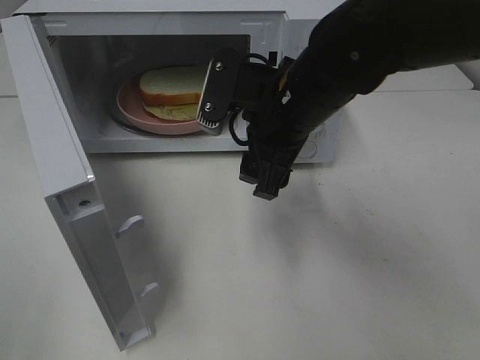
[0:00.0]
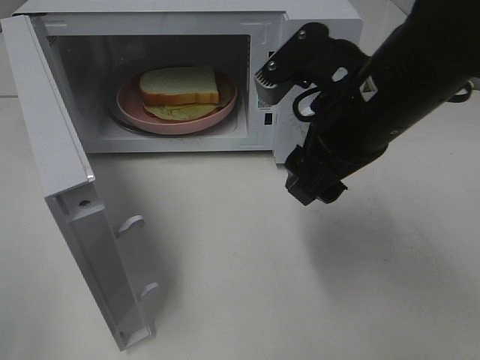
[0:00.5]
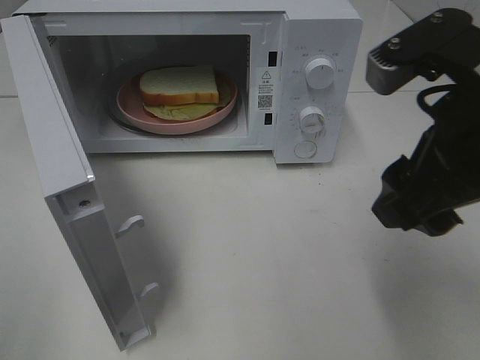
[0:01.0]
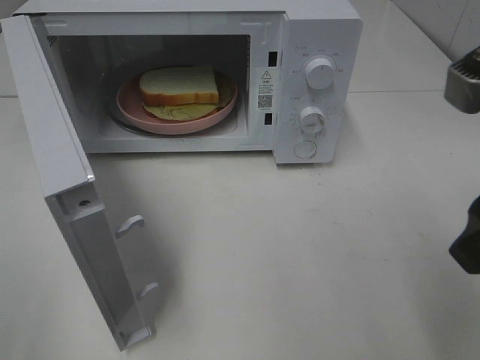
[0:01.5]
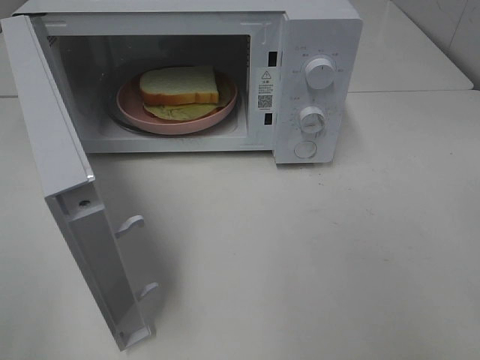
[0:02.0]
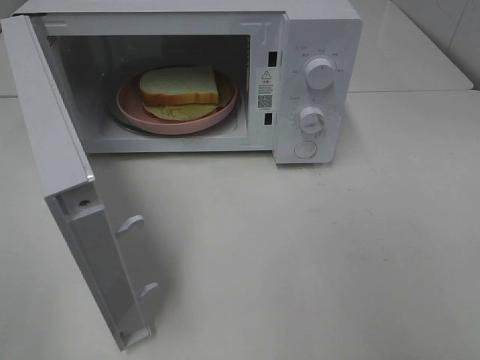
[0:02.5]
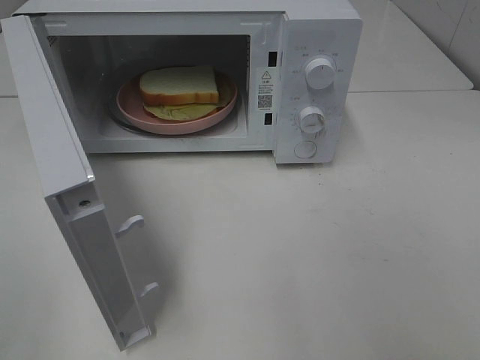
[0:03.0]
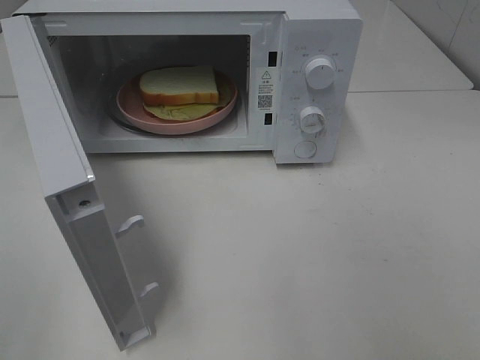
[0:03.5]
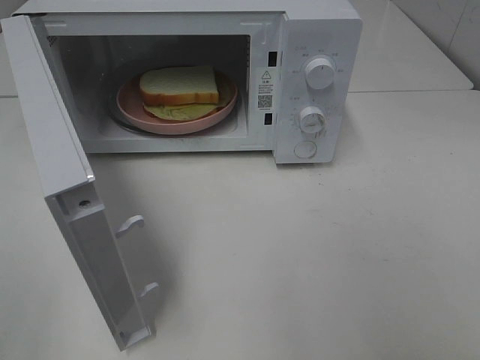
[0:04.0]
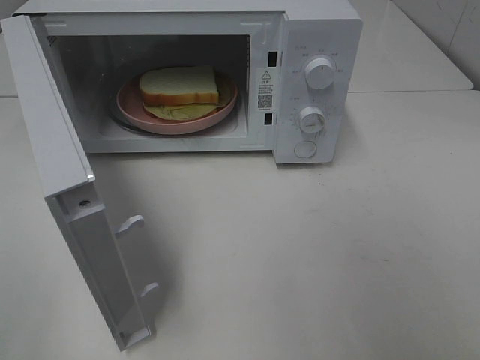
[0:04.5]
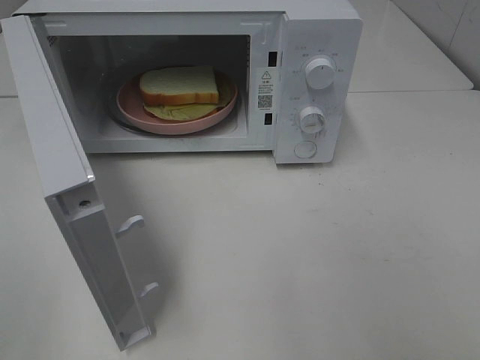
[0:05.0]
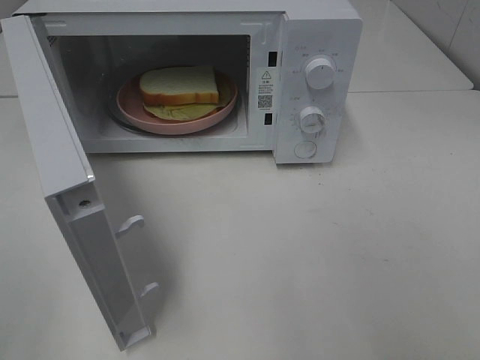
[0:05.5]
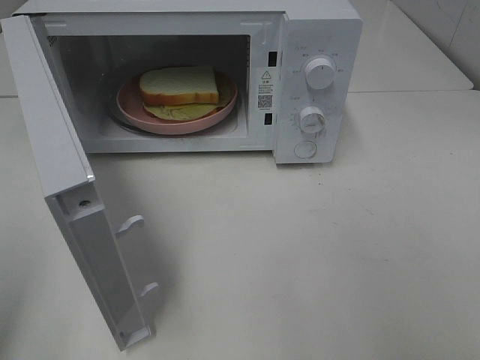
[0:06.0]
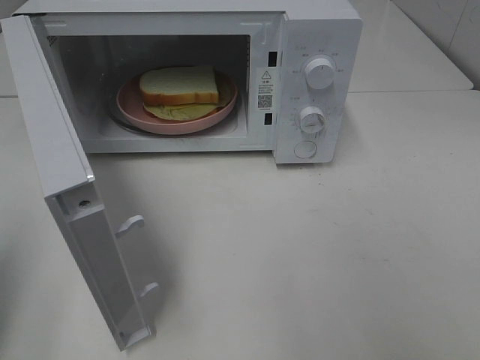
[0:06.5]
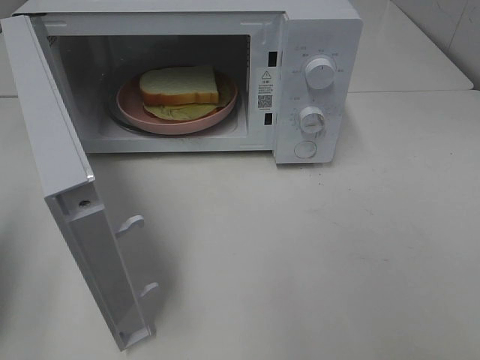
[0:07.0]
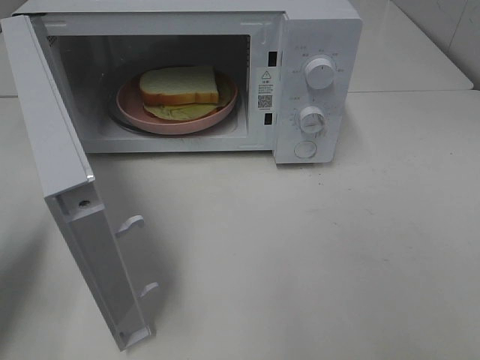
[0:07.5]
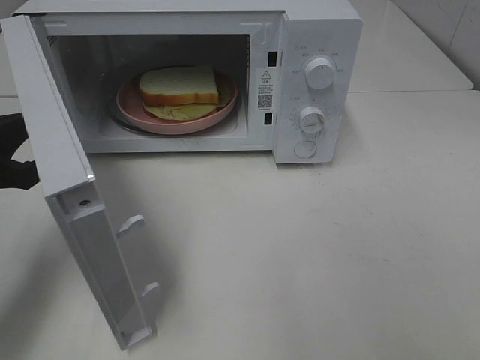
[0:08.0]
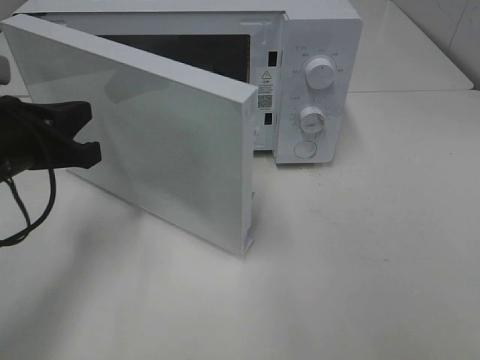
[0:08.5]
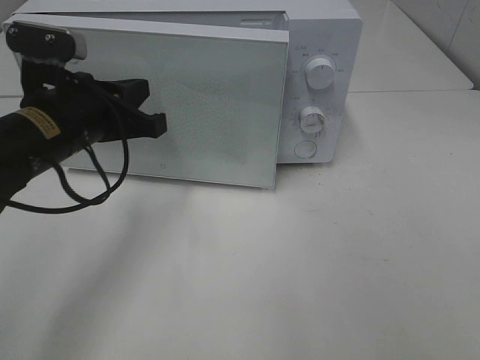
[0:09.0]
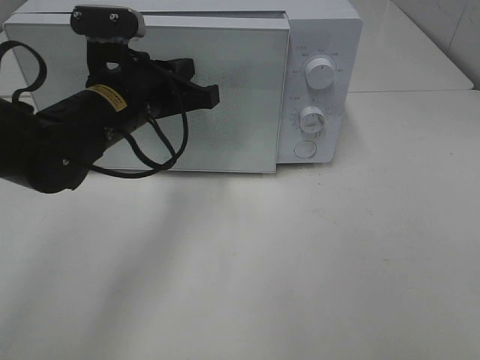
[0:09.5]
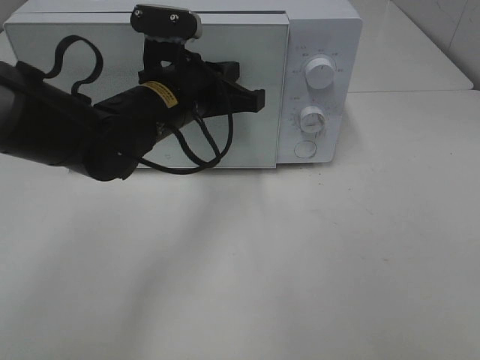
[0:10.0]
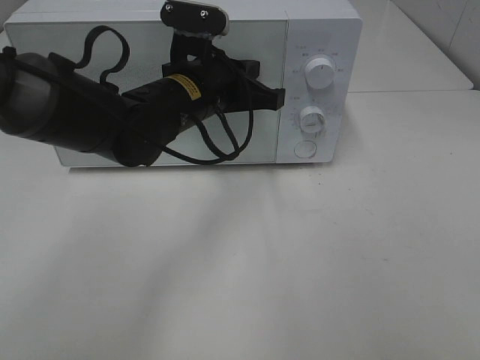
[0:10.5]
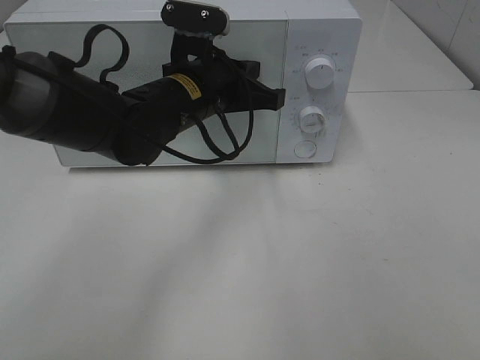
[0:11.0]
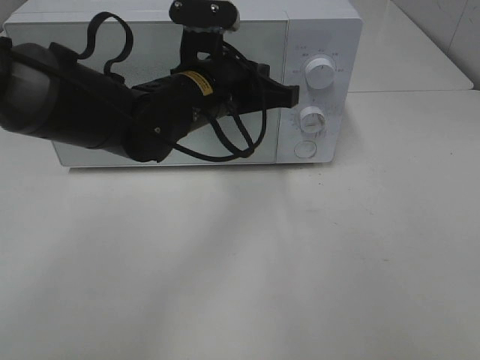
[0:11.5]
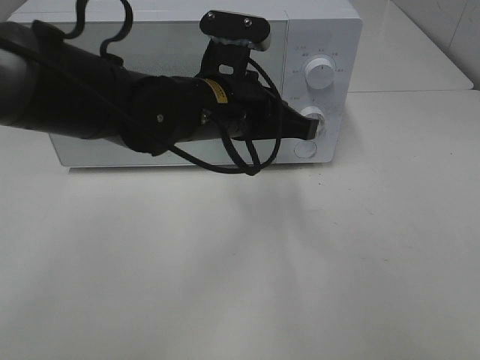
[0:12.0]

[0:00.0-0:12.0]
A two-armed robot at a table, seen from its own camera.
Task of the whole recording: Heat Sandwich.
Step, 0:00.0 to 0:11.5: Left hand: close the microwave door.
0:00.0 to 0:02.0: The right gripper travels backward, to the right and upward by some 30 cm.
0:06.0 to 0:08.0: The left gripper travels forward and downward by approximately 20 cm.
0:08.0 to 0:10.0: The left gripper shifts approximately 25 cm to the right and forward.
0:10.0 to 0:12.0: The left gripper travels to the right by some 5 cm.

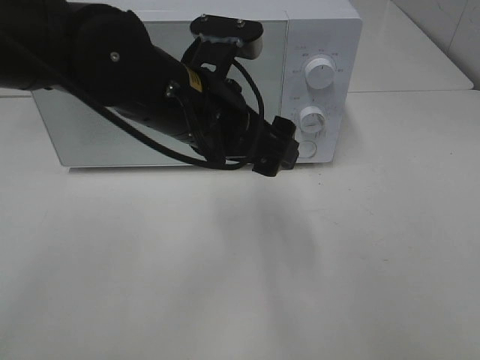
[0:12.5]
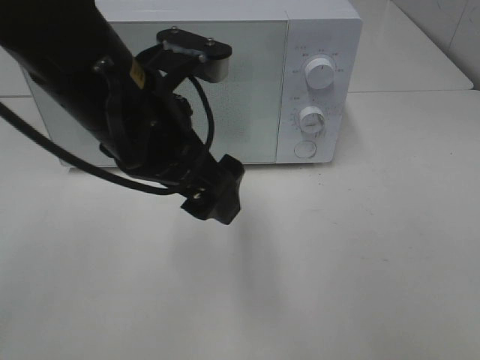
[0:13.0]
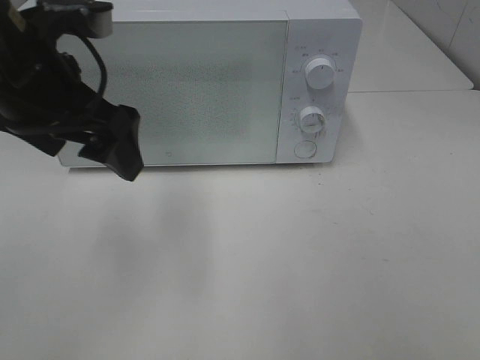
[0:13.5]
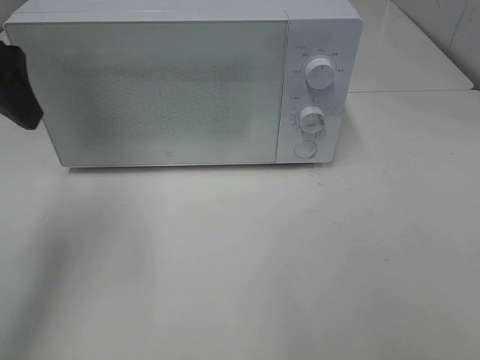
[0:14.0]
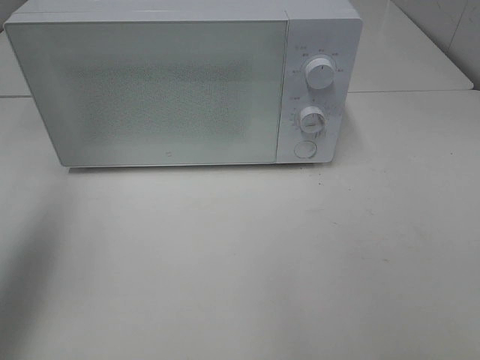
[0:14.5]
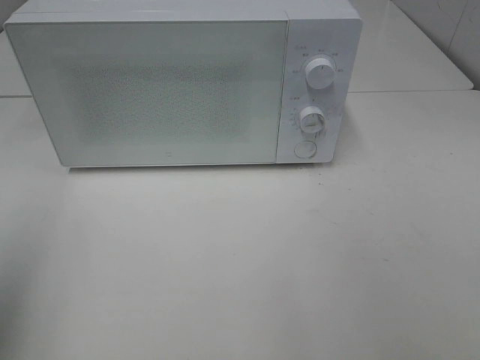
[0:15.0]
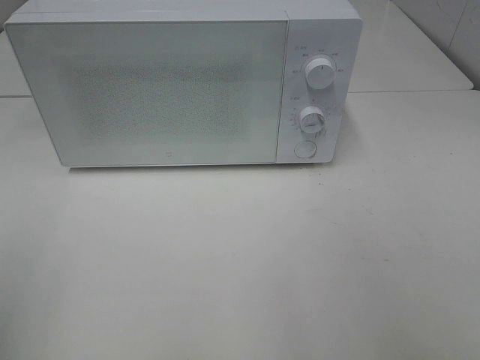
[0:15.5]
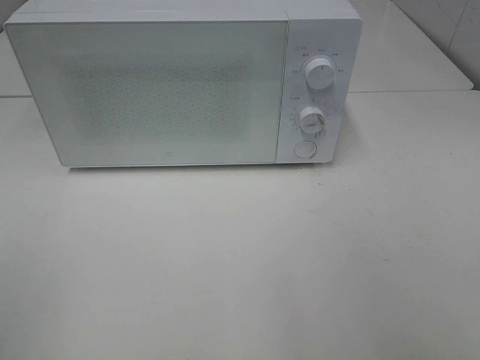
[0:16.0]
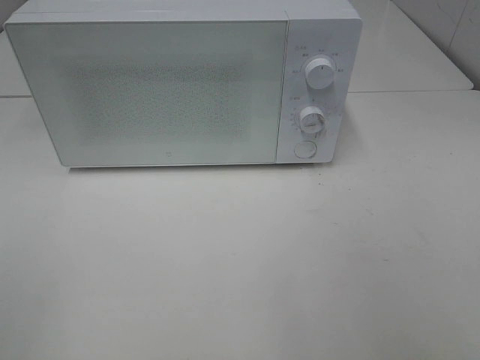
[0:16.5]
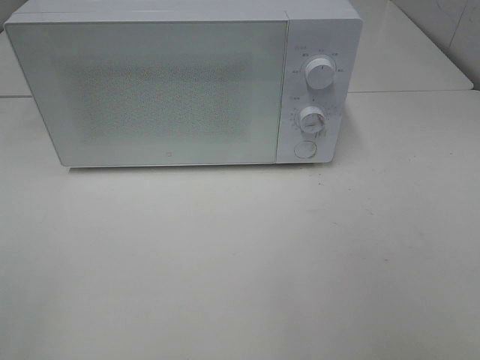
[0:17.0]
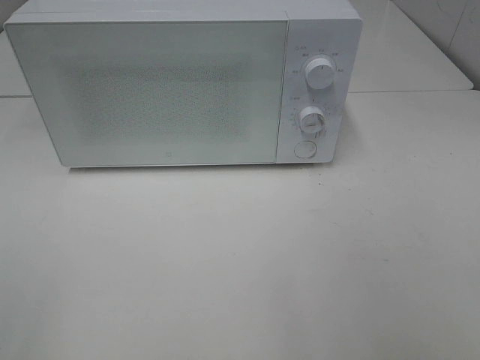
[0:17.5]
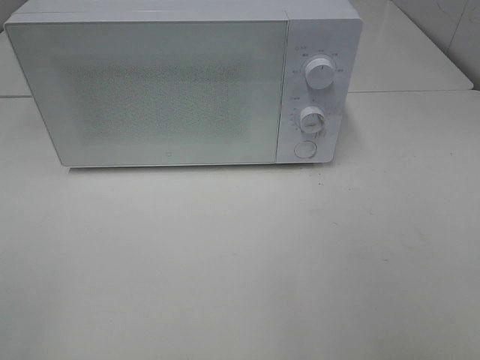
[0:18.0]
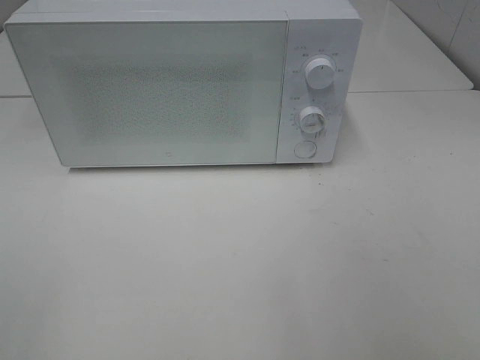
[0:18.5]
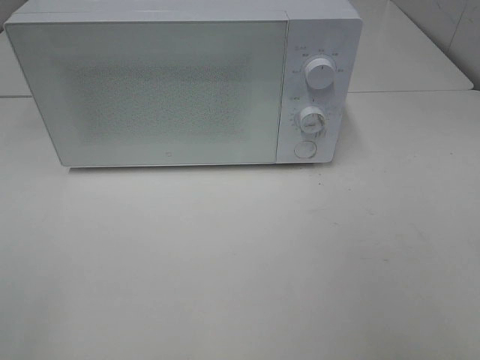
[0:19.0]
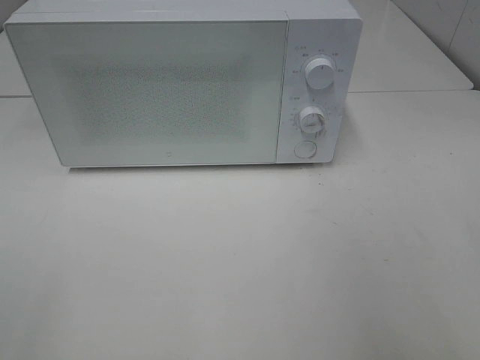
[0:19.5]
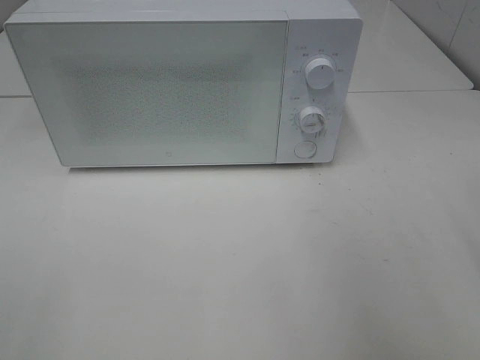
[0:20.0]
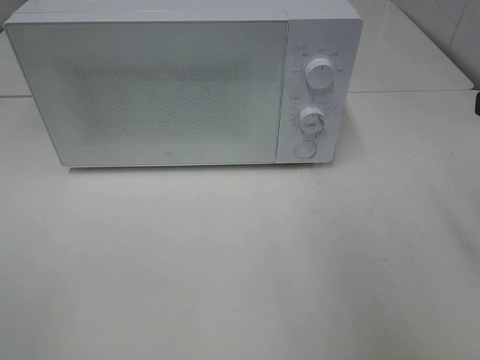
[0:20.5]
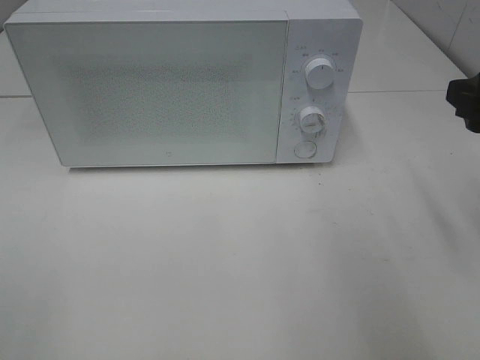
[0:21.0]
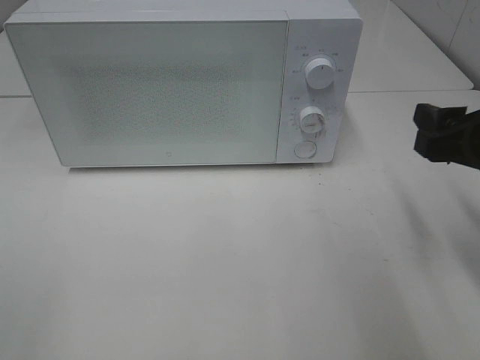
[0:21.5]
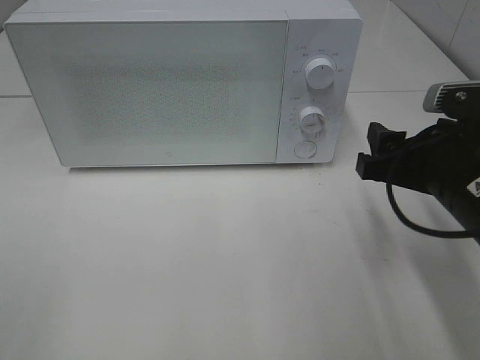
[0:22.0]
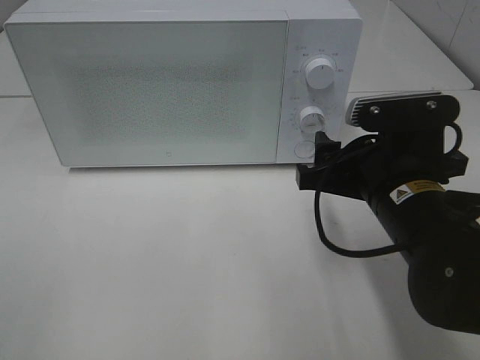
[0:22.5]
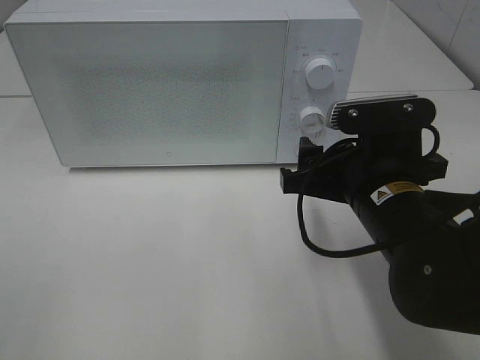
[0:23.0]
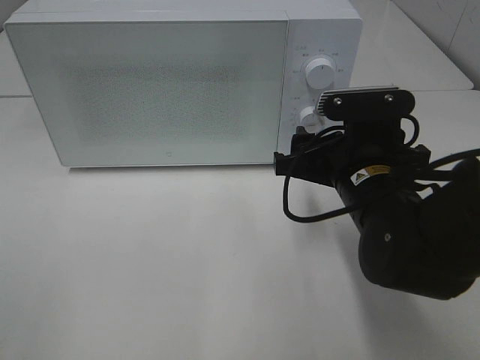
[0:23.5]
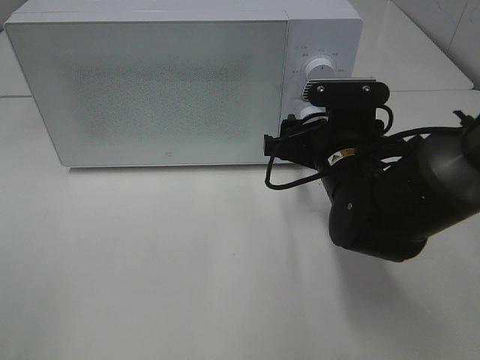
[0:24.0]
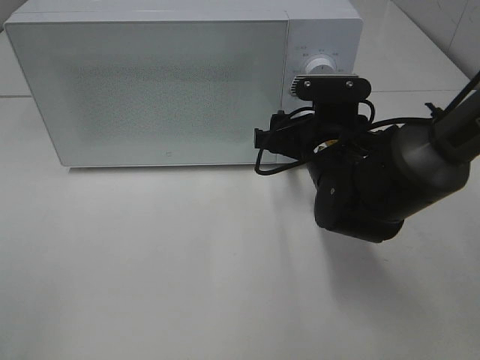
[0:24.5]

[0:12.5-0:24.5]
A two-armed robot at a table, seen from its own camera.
Task of the whole recording: Heat Sandwich.
0:12.5 to 0:14.5: The left gripper goes about 30 cm to the left and upward.
0:14.5 to 0:16.5: The left gripper travels backward by roughly 20 cm.
0:20.5 to 0:22.5: The right gripper goes approximately 20 cm to the left and downward.
0:22.5 to 0:24.5: The right gripper moves forward, approximately 10 cm.

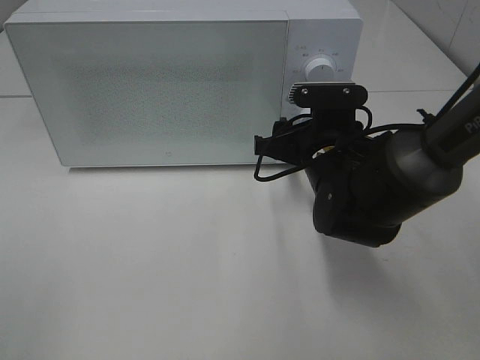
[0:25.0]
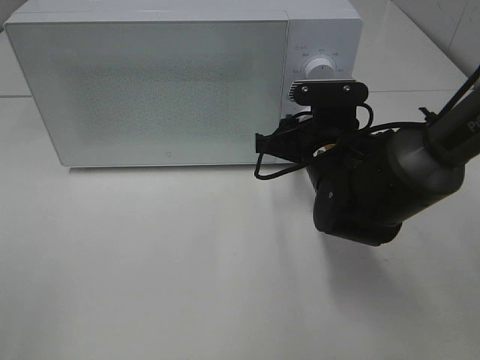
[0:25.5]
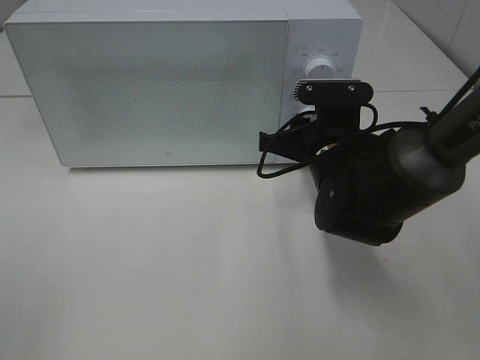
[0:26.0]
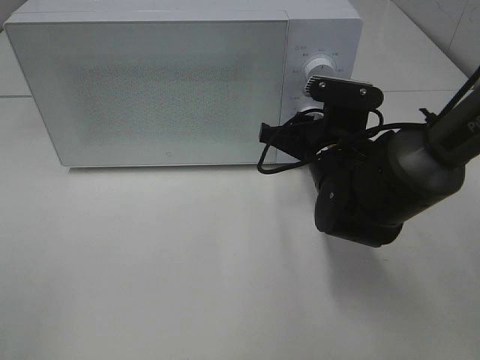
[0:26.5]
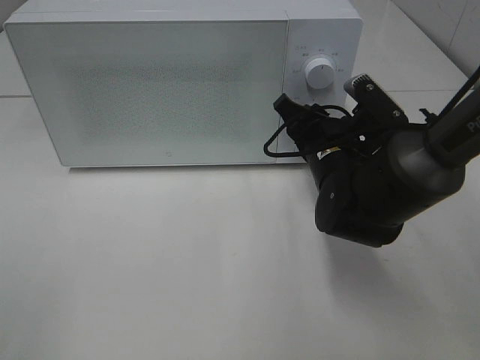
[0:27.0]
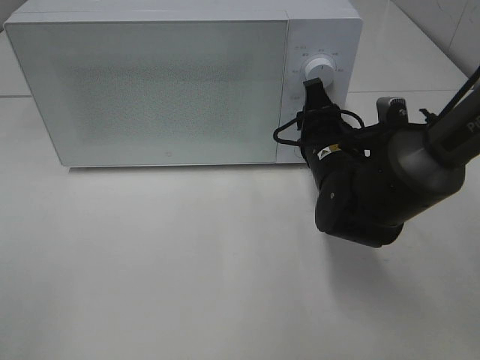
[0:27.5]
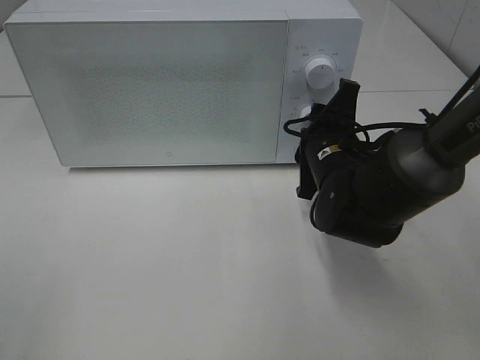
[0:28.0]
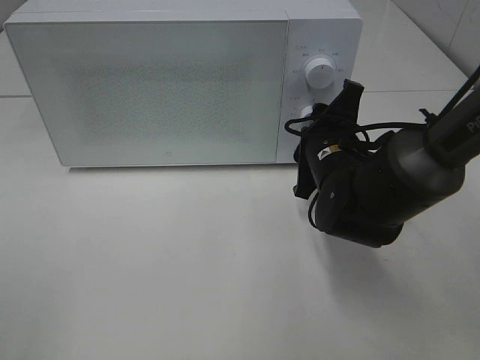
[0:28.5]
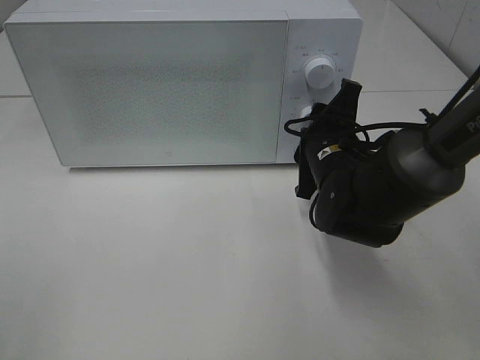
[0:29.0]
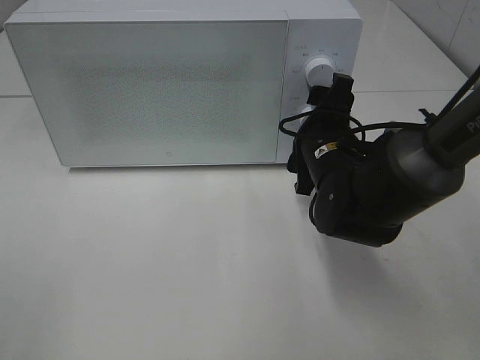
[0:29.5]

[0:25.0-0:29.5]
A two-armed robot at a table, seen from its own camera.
Task of the whole recording: Heat Sandwich.
0:27.0 to 0:29.5: The right gripper opens.
